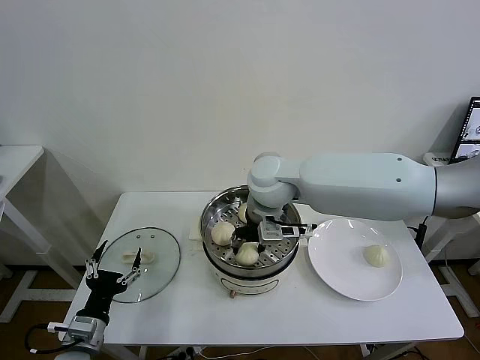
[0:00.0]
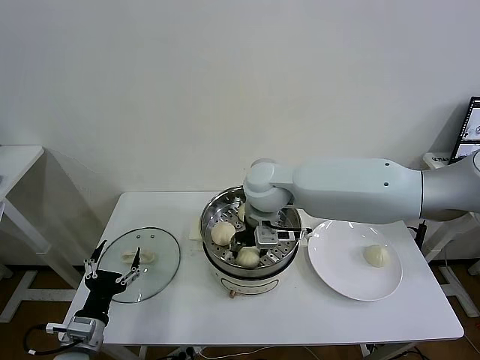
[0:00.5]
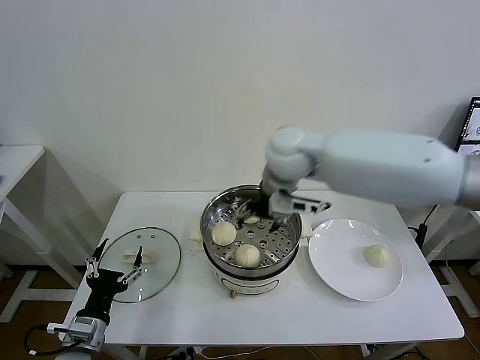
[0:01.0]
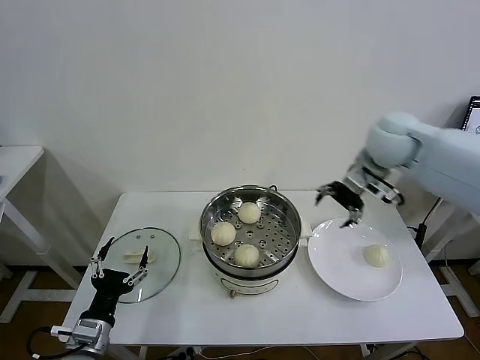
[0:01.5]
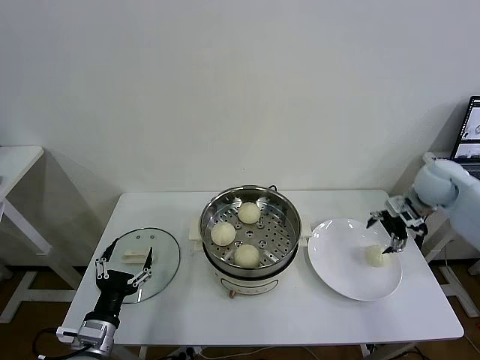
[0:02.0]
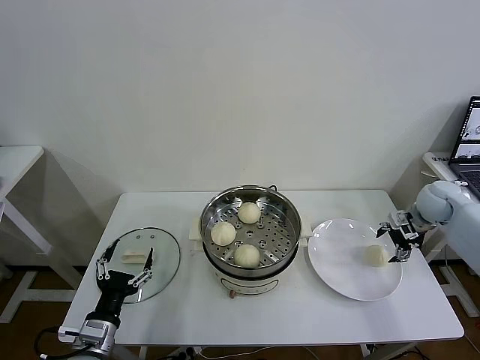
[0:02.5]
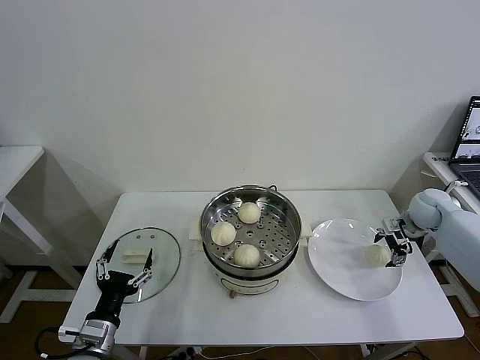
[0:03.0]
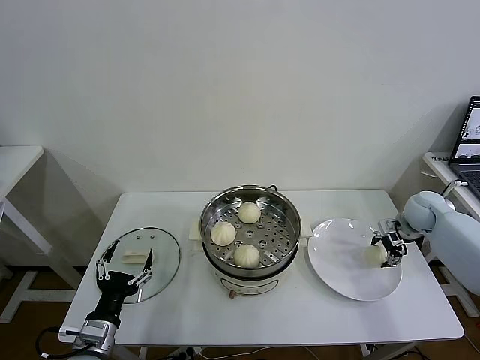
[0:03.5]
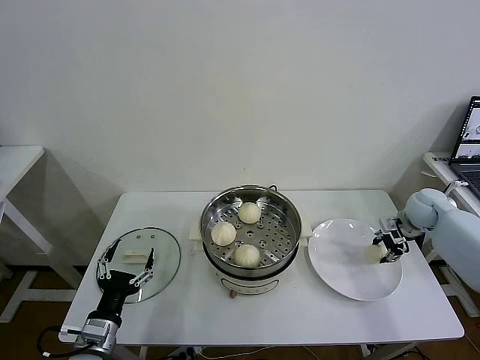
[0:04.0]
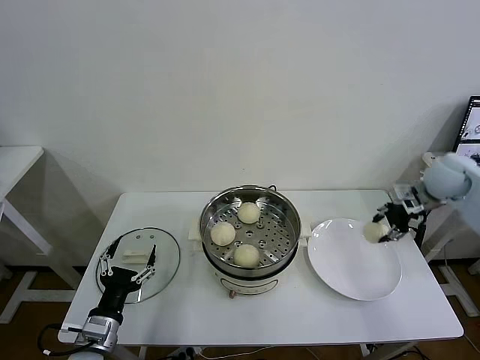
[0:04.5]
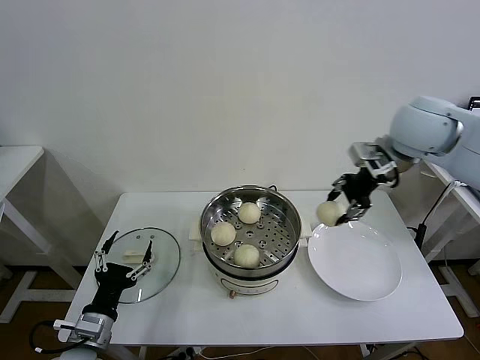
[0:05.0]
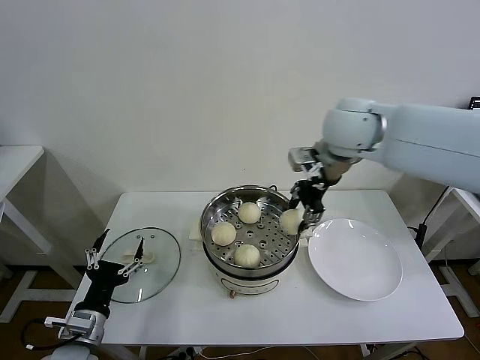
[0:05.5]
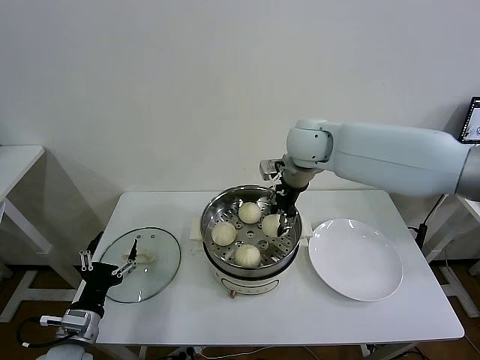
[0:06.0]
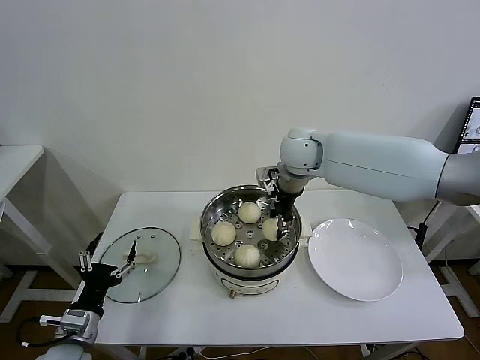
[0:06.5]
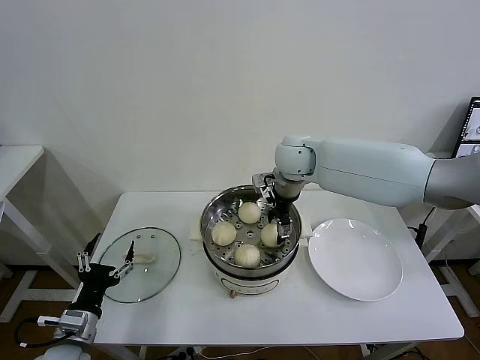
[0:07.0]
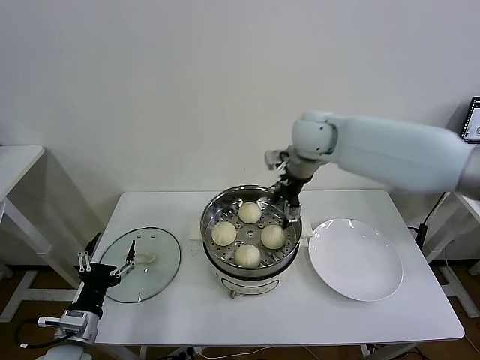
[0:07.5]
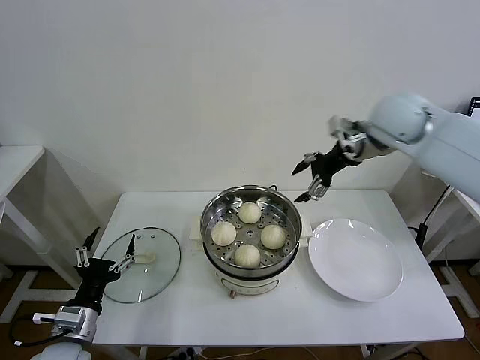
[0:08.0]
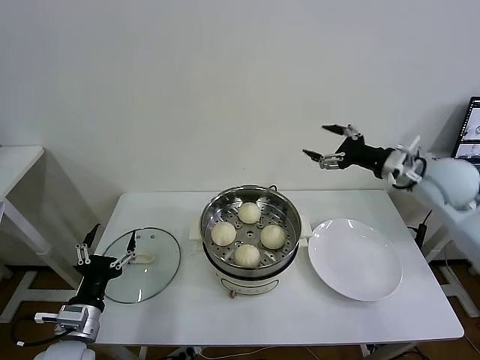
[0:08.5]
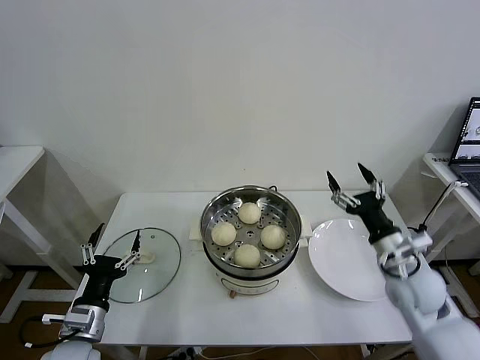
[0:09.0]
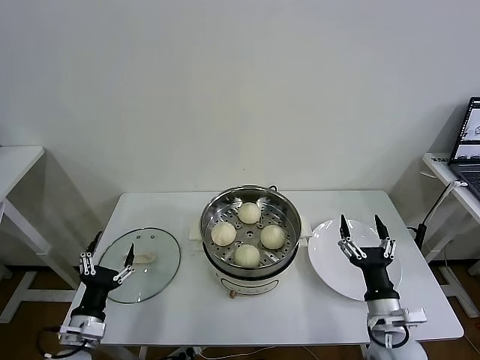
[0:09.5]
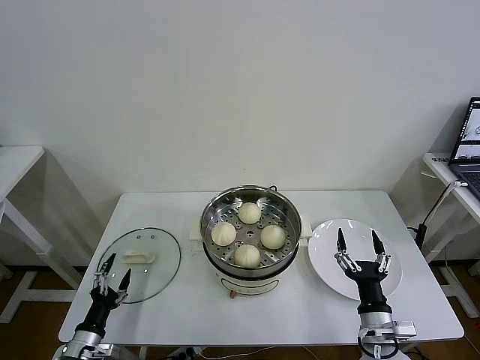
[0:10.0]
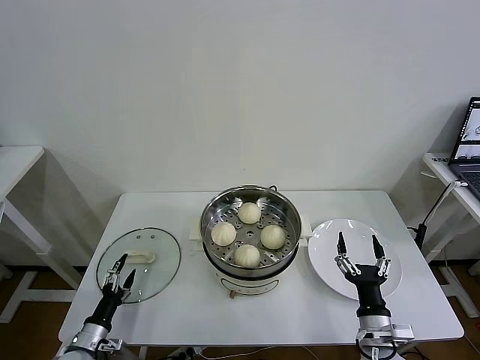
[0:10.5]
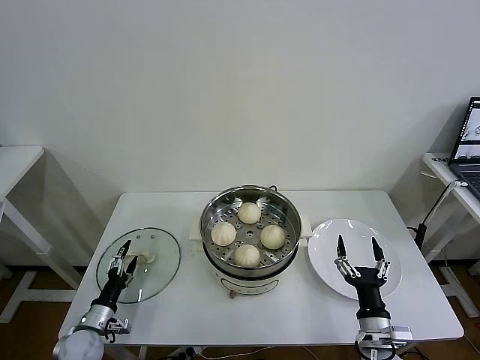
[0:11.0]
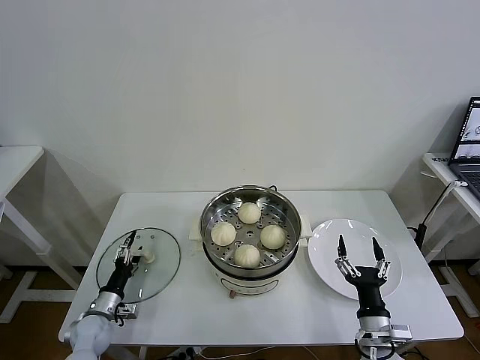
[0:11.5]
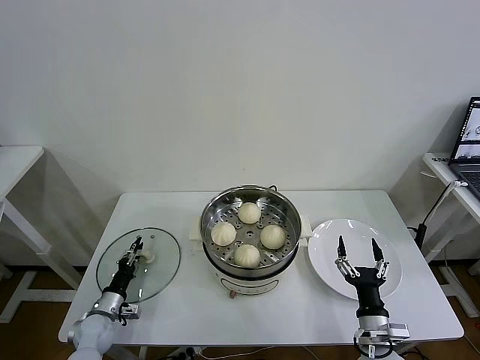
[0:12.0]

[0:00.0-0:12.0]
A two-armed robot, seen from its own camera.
Task of the whole recording: take steamed baozi put them in steamer then cover it.
Step, 0:01.0 to 0:03.5: Grasp the baozi in the plate with right gripper.
Step, 0:04.0 to 0:07.0: Place the baozi on the steamer with right gripper.
0:00.0 to 0:02.0: The right gripper heads to the right, covering about 40 cm, and opens.
0:02.0 to 0:04.0: The right gripper moves downward, roughly 10 cm, and closes.
0:04.0 to 0:06.0: The right gripper shifts approximately 40 cm to the left and upward.
0:06.0 to 0:08.0: The right gripper shifts some 15 cm to the right and upward, and opens.
0:08.0 to 0:10.0: The right gripper shifts some 50 cm downward and backward. Meanwhile the left gripper moves downward, about 10 cm.
0:10.0 to 0:12.0: The left gripper moves forward and downward, roughly 15 cm, and closes up.

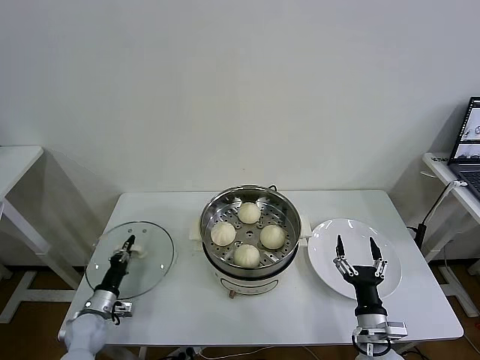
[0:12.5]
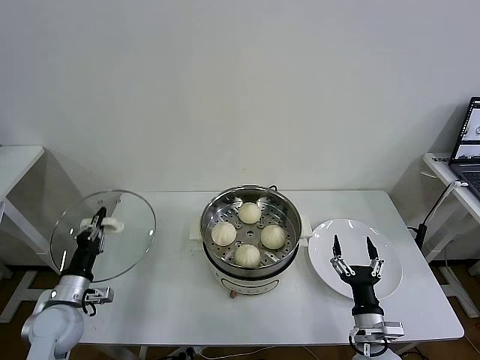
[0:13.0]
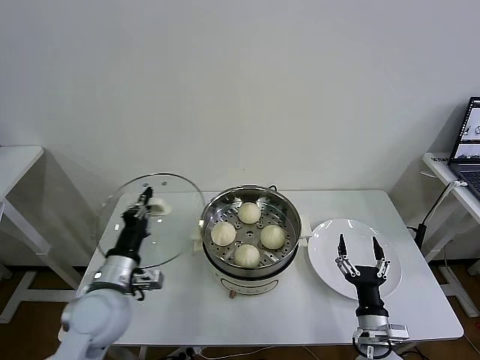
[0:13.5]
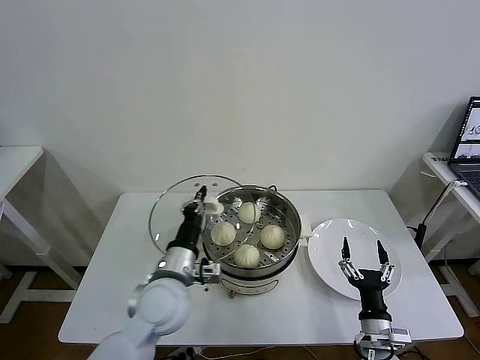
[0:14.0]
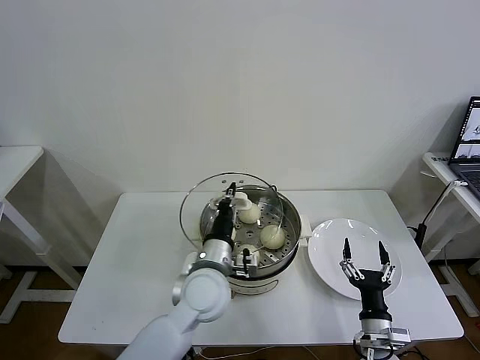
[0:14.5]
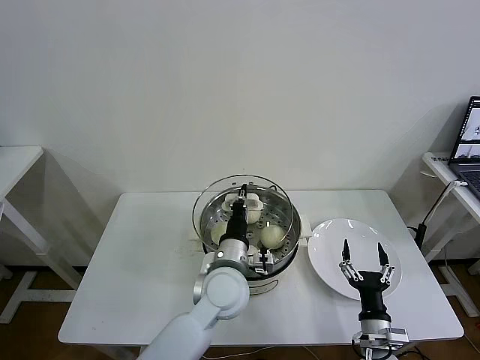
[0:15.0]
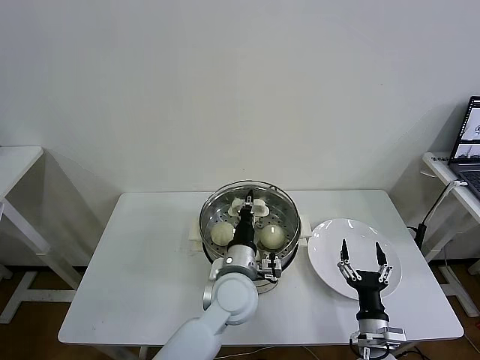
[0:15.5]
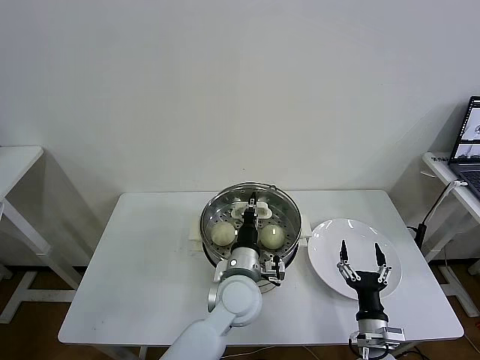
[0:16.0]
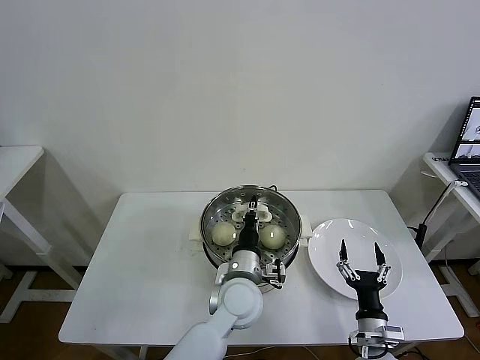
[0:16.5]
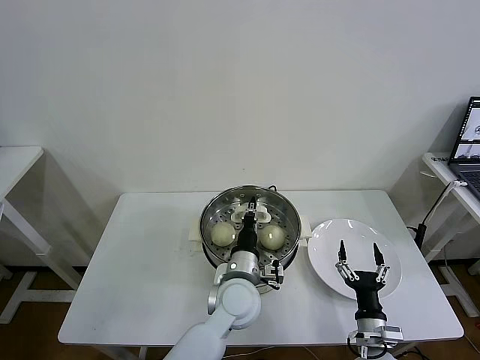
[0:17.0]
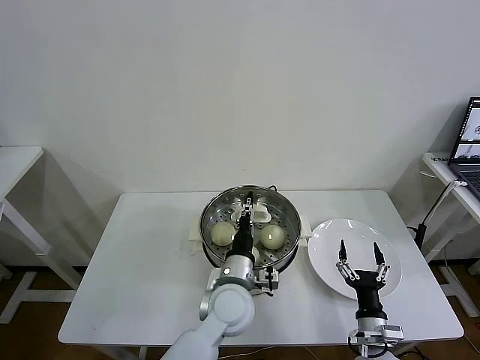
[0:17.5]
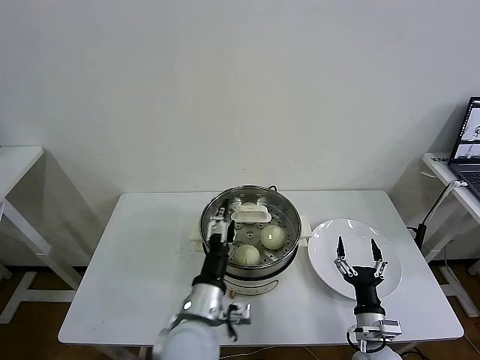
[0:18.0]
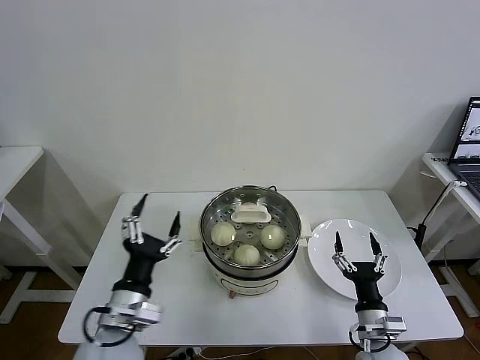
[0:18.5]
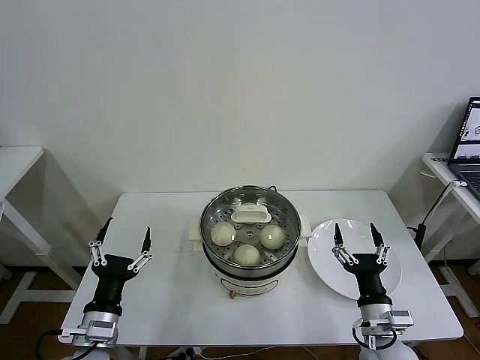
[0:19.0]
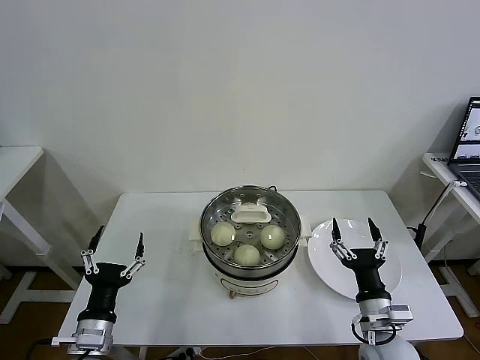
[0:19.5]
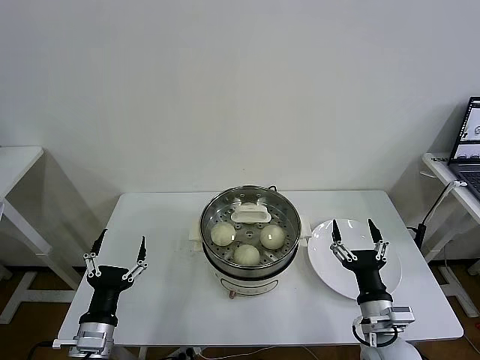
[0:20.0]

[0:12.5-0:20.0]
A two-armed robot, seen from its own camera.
Task of the whole recording: take steamed baozi put them in steamer then cover it.
Step, 0:12.5 to 0:18.0: Place the pot lid on the steamer with left gripper.
0:12.5 to 0:14.5: The left gripper travels to the right and upward by about 40 cm.
0:14.5 to 0:16.5: The left gripper heads to the right, covering about 5 cm.
0:16.5 to 0:18.0: The left gripper travels backward and to the left by approximately 10 cm, and opens its fingers.
0:18.0 to 0:20.0: The right gripper travels upward by roughly 10 cm. Meanwhile the left gripper goes about 20 cm to the left.
